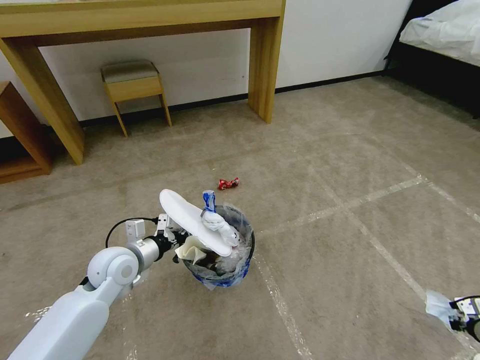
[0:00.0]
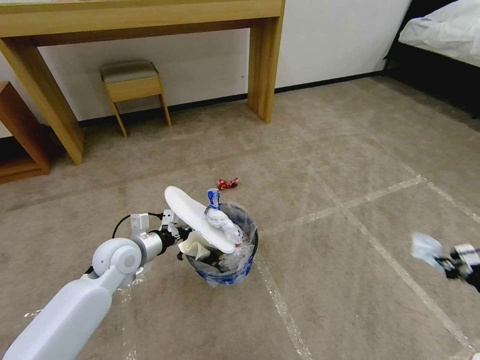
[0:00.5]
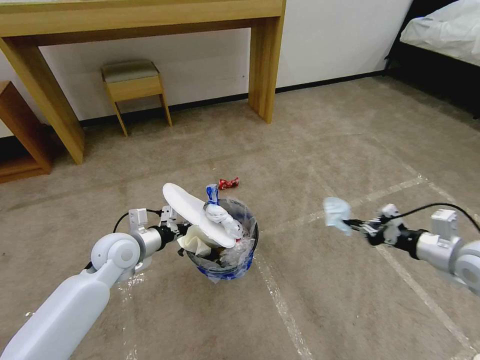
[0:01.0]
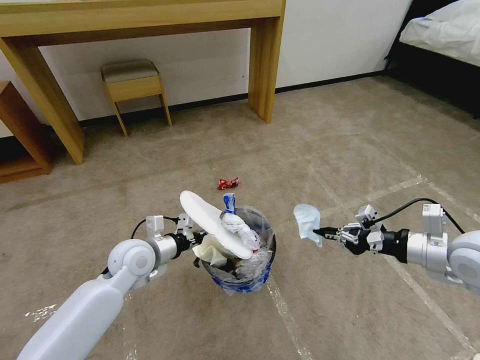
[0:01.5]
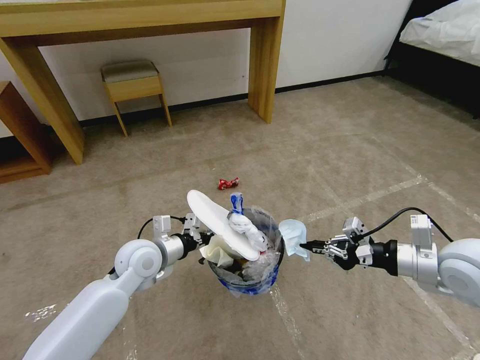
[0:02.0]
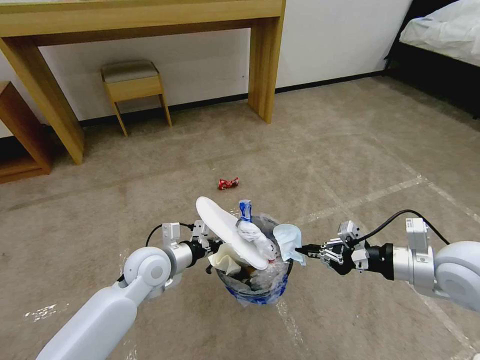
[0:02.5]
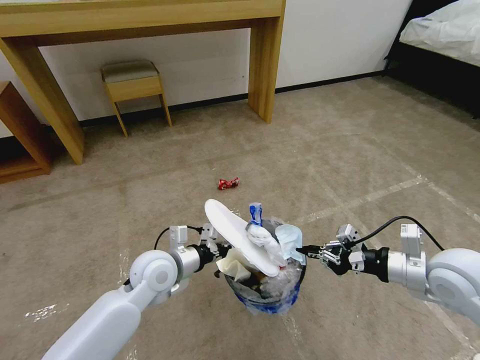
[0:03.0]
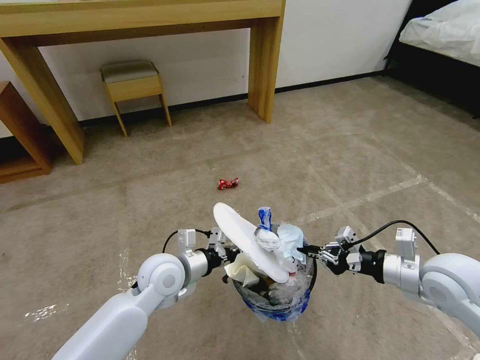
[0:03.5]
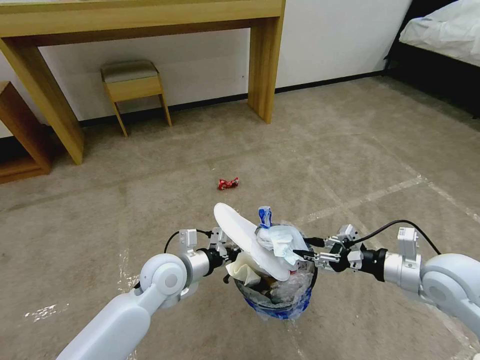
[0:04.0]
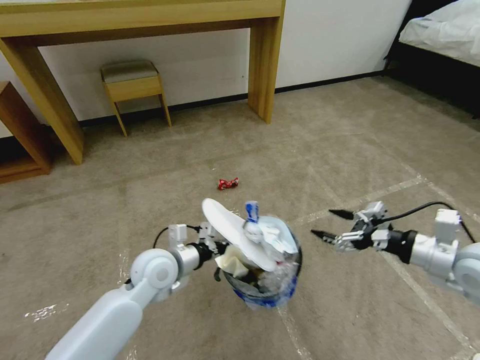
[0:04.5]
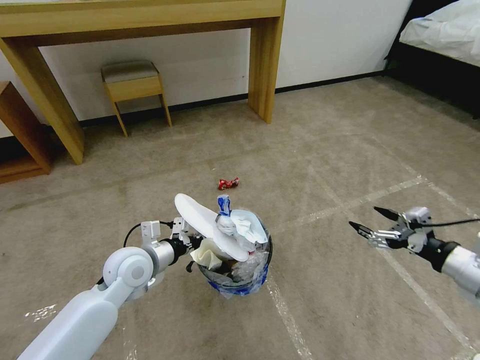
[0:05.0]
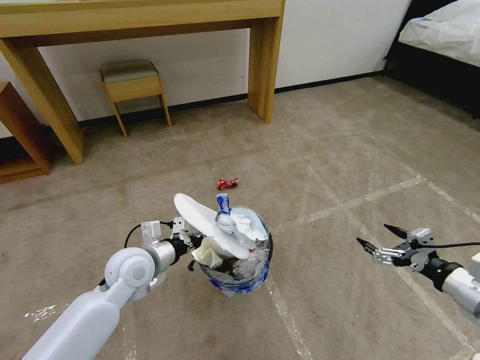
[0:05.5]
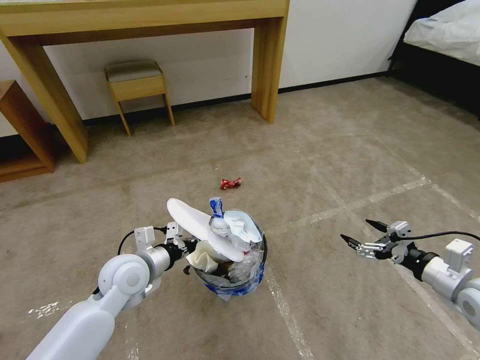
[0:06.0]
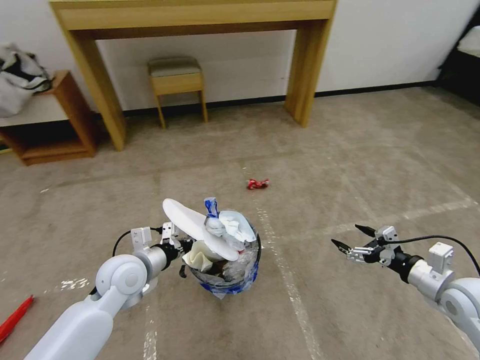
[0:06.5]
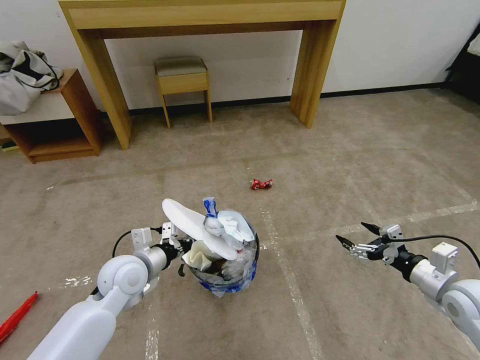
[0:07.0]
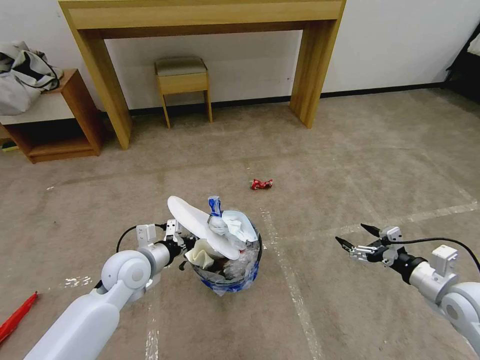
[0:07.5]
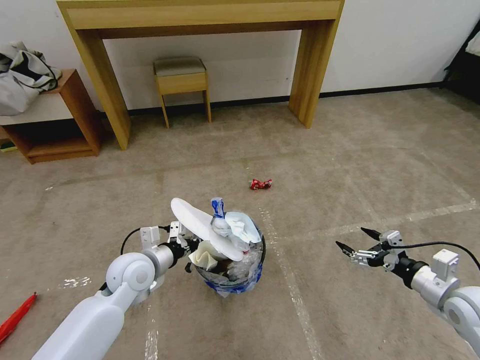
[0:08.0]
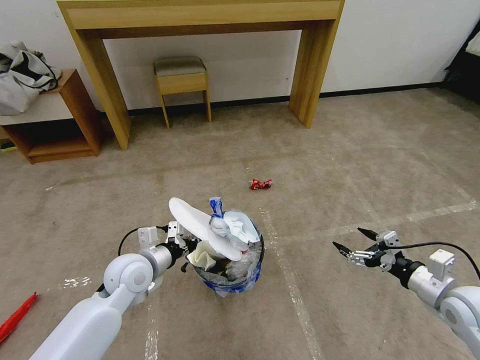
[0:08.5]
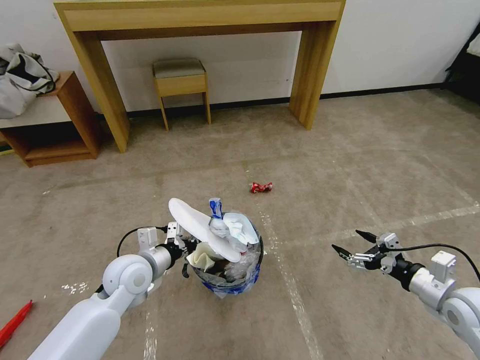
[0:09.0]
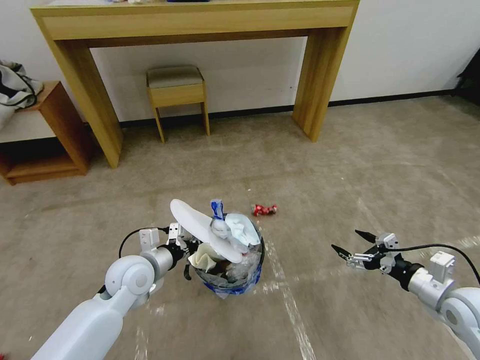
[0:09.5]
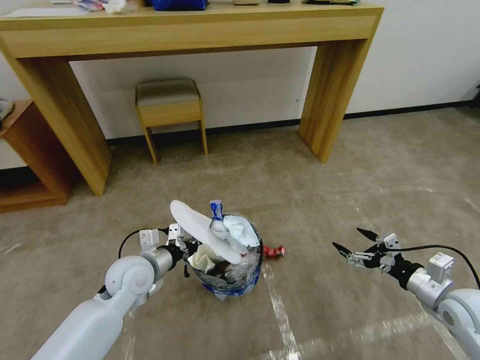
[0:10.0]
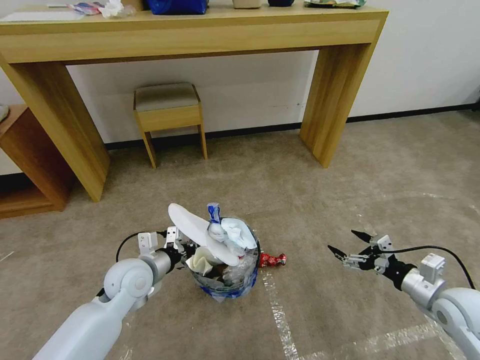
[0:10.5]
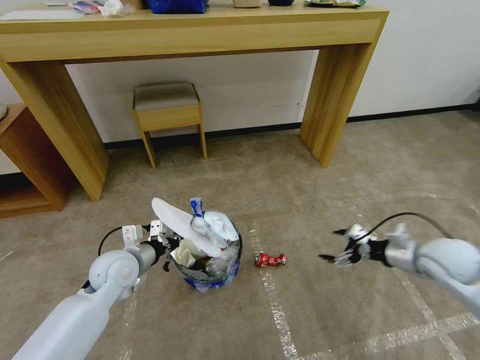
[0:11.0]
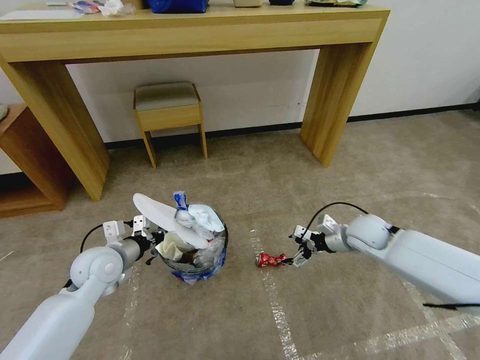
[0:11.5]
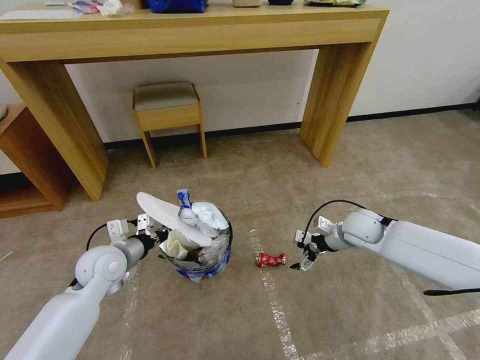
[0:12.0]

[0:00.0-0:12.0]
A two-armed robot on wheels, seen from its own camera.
Task of the whole recording: Pick up the trash bin and place the garbage on the floor into it.
0:00.0 to 0:02.0: The left gripper goes some 5 cm to the right, while the right gripper moves upward and to the left, some 35 cm.
0:02.0 to 0:04.0: The left gripper heads to the right, covering approximately 5 cm. Meanwhile the right gripper opens.
0:04.0 to 0:06.0: The left gripper travels to the left by some 10 cm. The right gripper shifts some 5 cm to the right, and opens.
0:10.0 to 0:12.0: The right gripper heads forward and to the left, covering some 25 cm, while the left gripper heads to the left, covering about 5 cm.

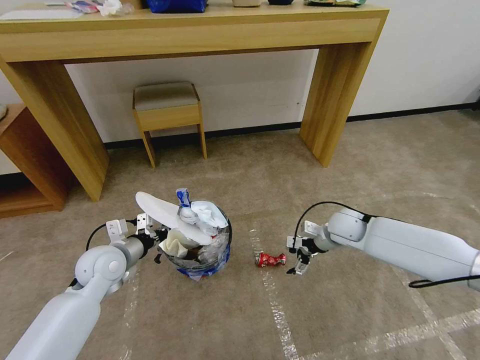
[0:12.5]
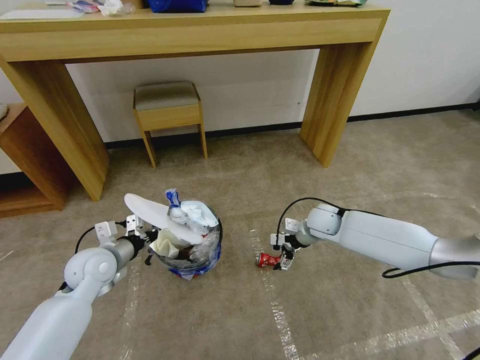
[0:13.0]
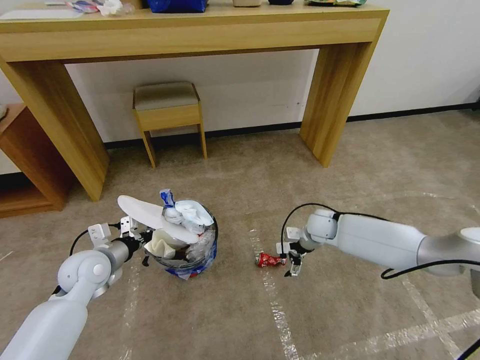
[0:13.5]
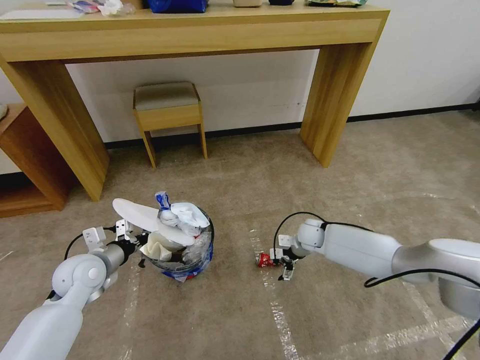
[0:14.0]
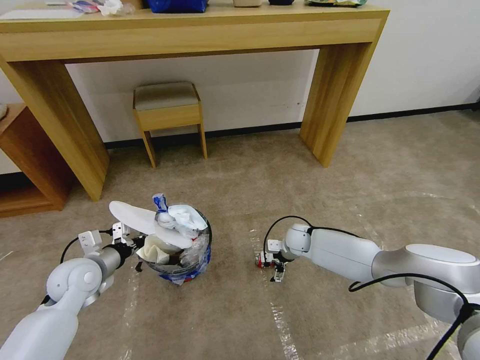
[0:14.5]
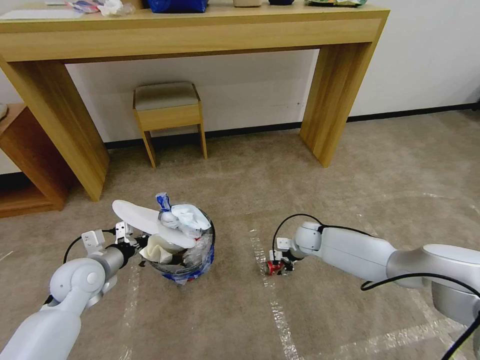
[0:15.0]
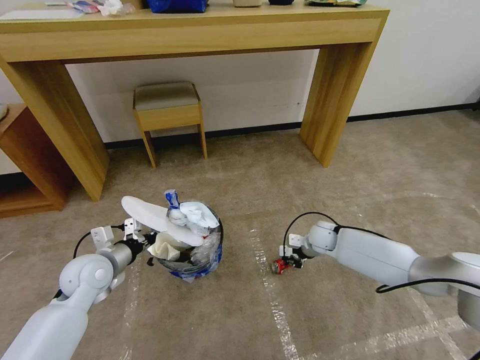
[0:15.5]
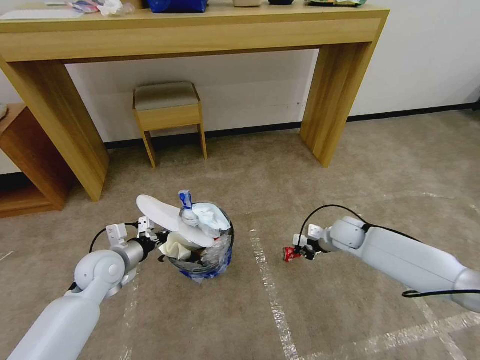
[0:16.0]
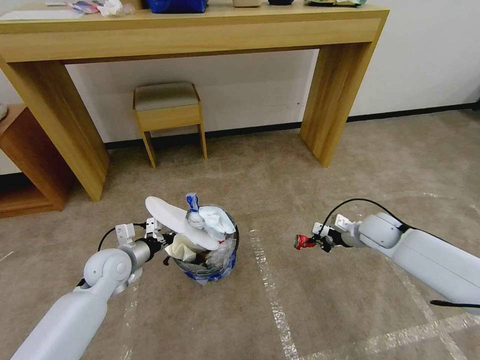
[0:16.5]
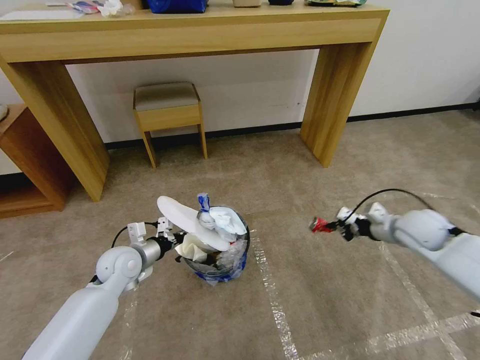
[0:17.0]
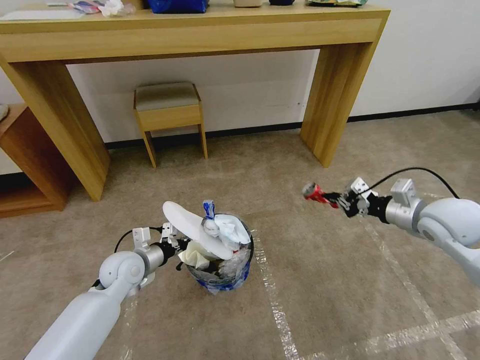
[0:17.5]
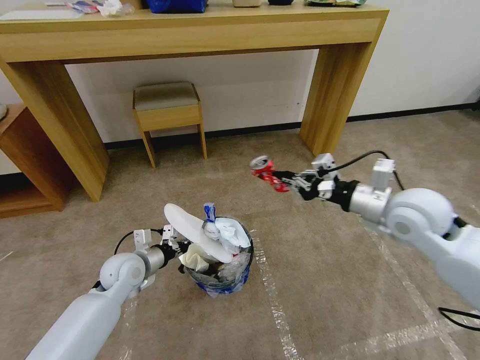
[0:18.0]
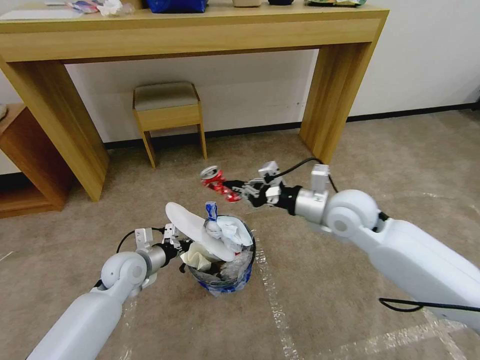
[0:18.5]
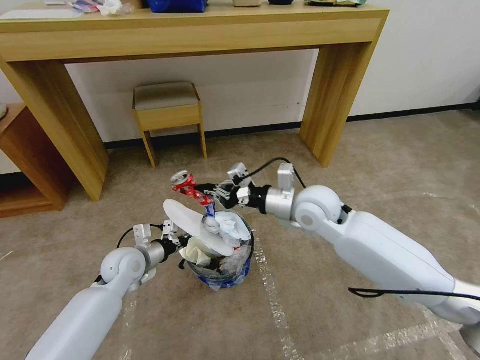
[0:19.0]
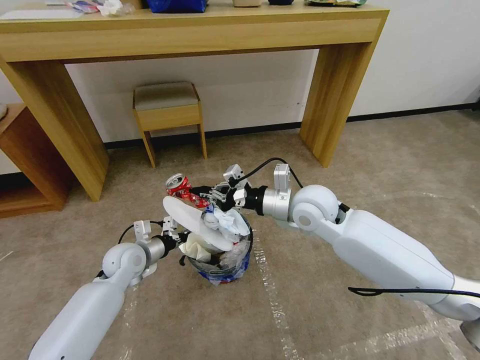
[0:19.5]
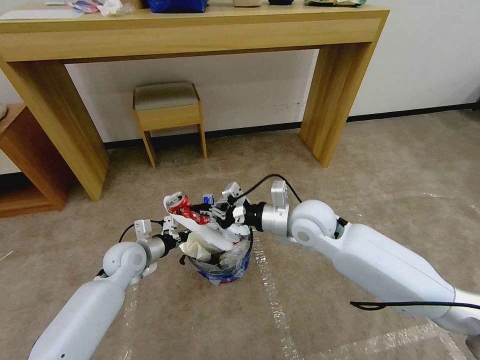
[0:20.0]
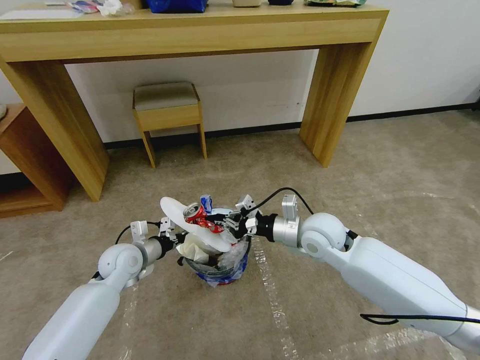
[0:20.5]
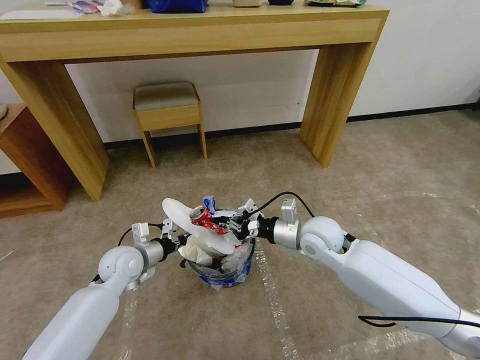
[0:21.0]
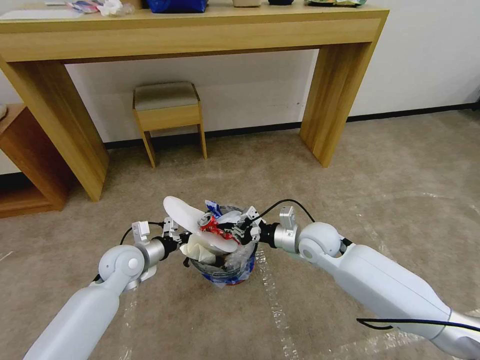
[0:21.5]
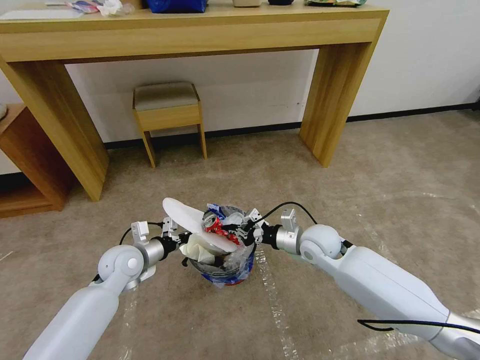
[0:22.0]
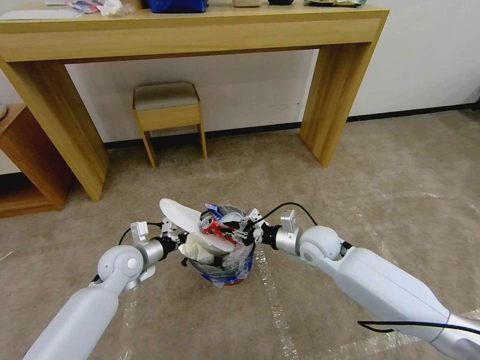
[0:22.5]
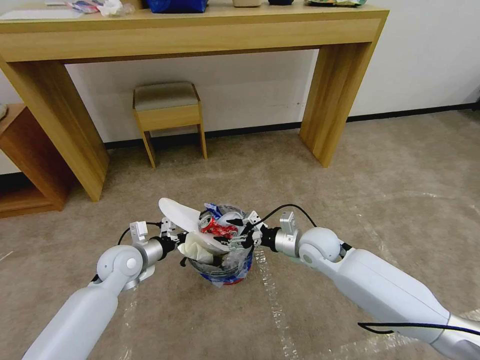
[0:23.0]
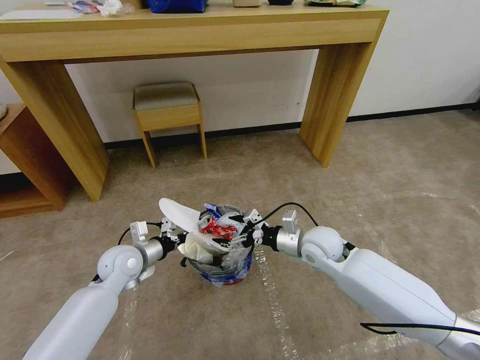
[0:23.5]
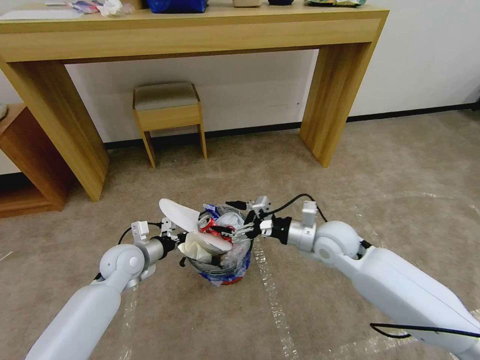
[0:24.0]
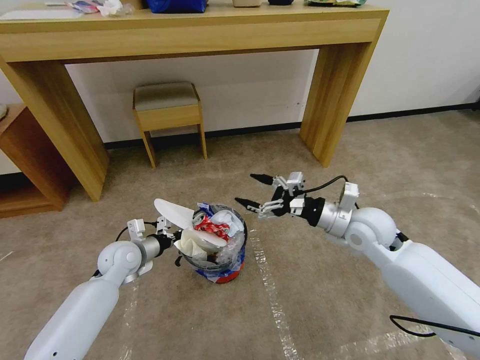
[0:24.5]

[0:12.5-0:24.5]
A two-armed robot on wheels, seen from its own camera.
Task of the whole recording: Pick up the trash bin and place the garbage on the floor into it.
0:12.5 to 0:14.5: The left gripper travels to the left by about 5 cm. Meanwhile the right gripper is displaced downward and to the left by roughly 15 cm.
0:14.5 to 0:16.5: The left gripper goes some 5 cm to the right, while the right gripper heads to the right and upward, covering roughly 20 cm, and closes up.
0:16.5 to 0:18.5: The right gripper travels to the left, upward and backward by some 20 cm.
0:18.5 to 0:20.5: The right gripper goes some 5 cm downward.
0:20.5 to 0:22.5: The right gripper shifts about 5 cm downward.
0:22.5 to 0:24.5: The right gripper is displaced upward and to the right by some 10 cm, and opens up.

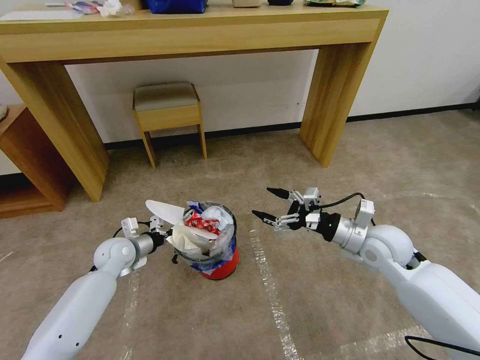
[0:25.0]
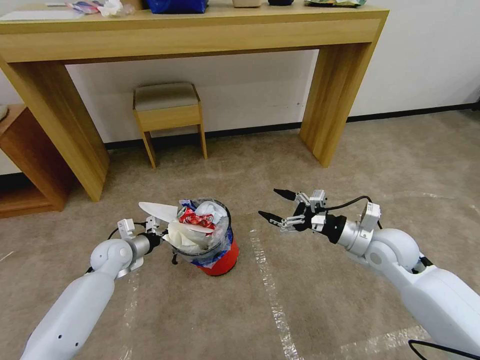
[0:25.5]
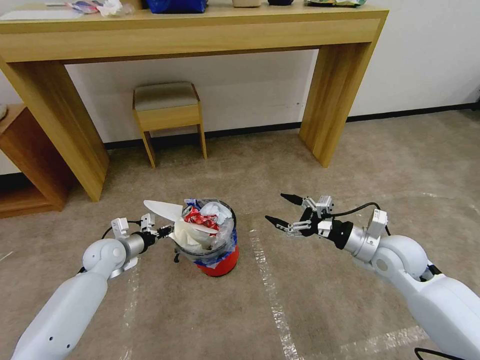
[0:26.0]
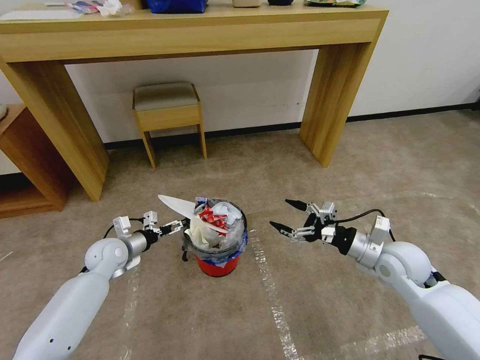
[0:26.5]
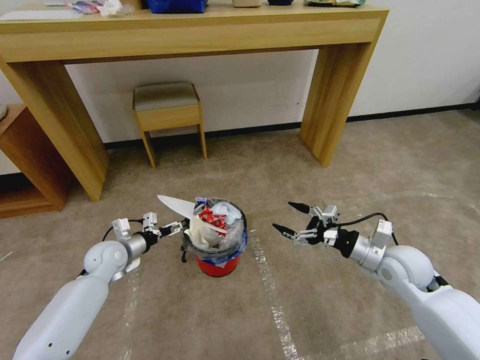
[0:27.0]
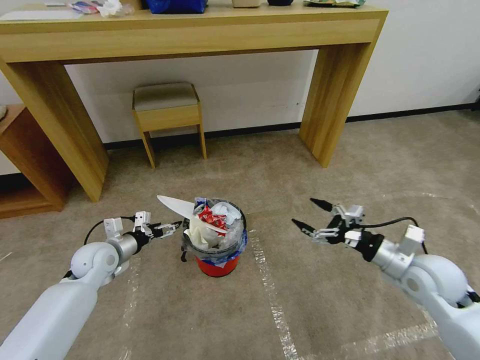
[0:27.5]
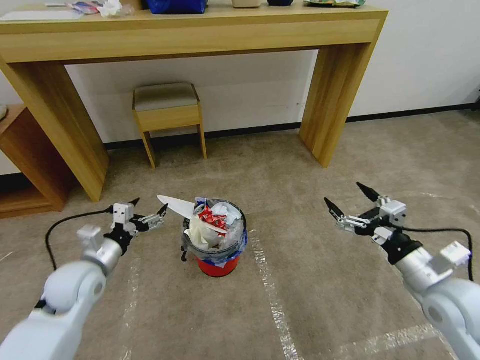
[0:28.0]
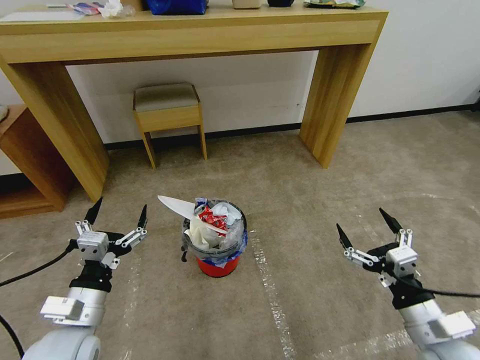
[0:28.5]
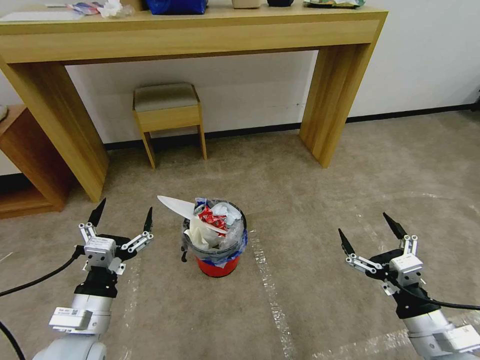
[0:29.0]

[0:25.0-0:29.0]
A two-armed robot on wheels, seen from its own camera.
Task of the whole recording: Pick up the trash bin and place the garbage on the floor into it.
0:25.0 to 0:27.0: The right gripper changes place by about 5 cm. Meanwhile the left gripper opens its fingers.
0:27.0 to 0:29.0: The grippers both shift backward by some 20 cm.
